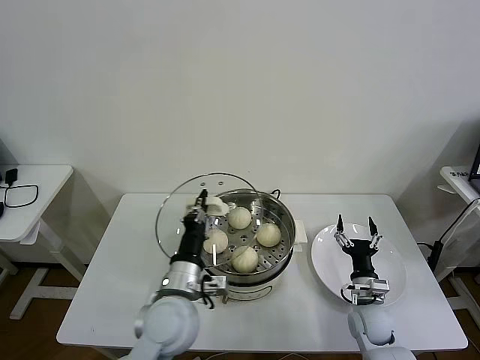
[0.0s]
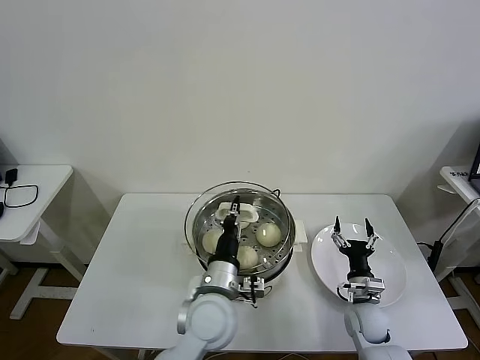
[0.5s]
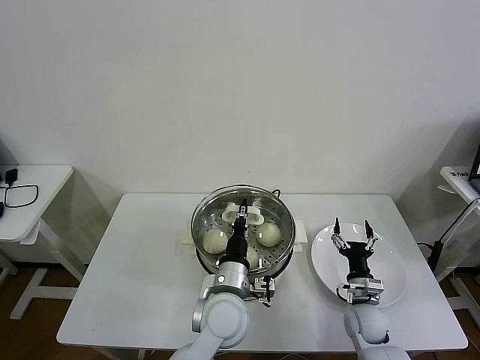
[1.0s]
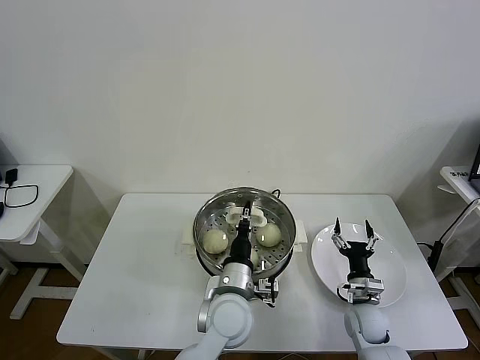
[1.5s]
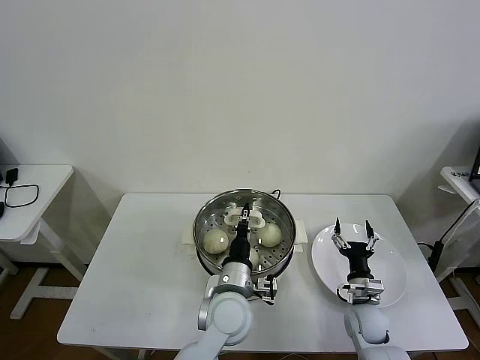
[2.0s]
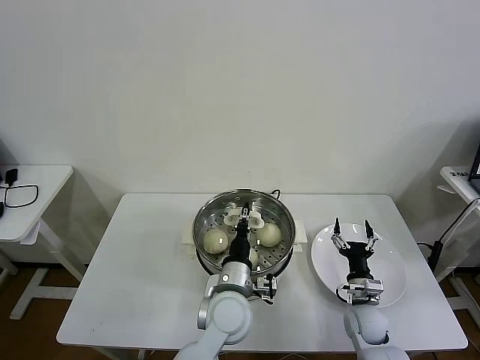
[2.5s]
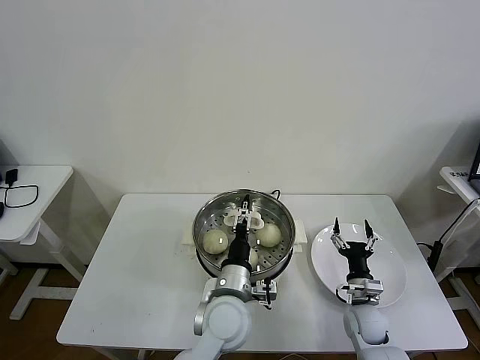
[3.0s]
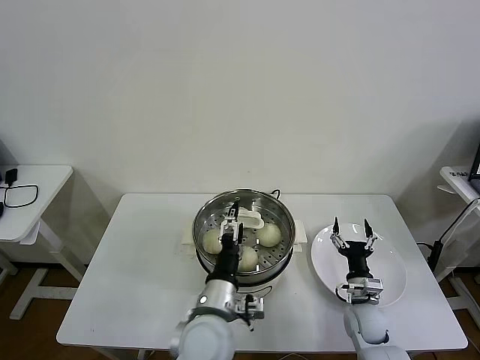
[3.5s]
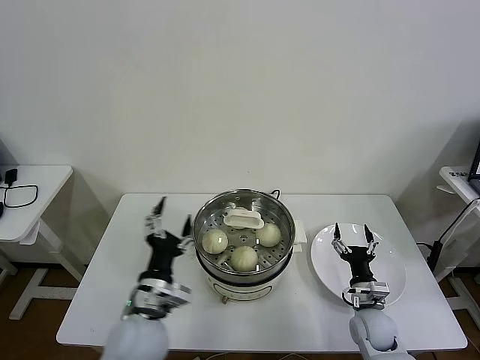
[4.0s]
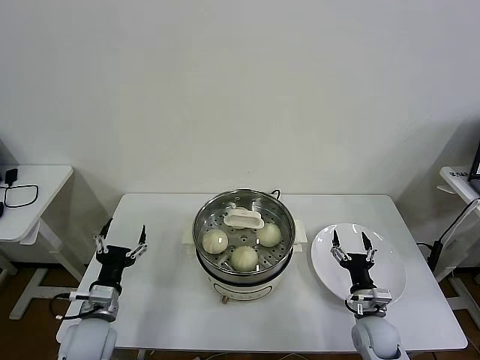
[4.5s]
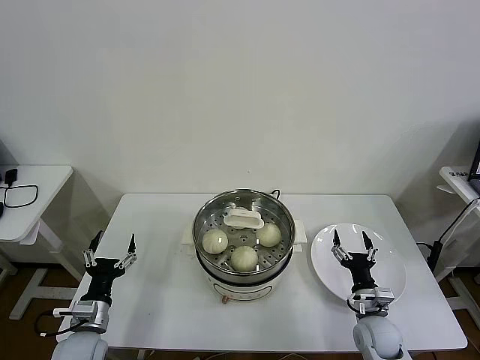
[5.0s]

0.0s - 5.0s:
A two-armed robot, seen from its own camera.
Task of the whole recording: take steamed baozi put them in steamer then cover it.
Step, 0.0s - 2.5s: Place the pot lid on the steamer with left gripper.
0.0s - 2.5s: The left gripper travels to the right and downward by roughly 10 cm.
2.5s - 5.0s: The left gripper is displaced to the left by some 30 cm, and opens.

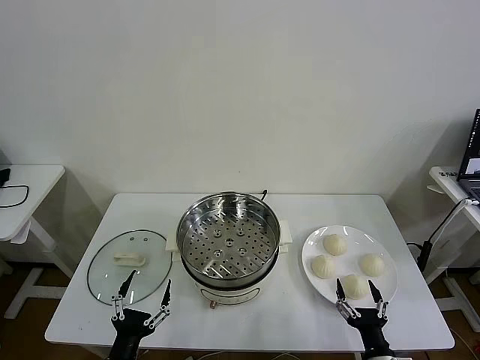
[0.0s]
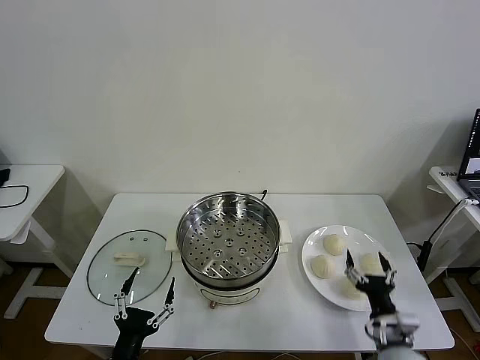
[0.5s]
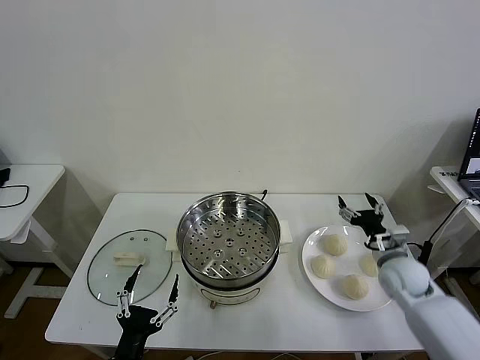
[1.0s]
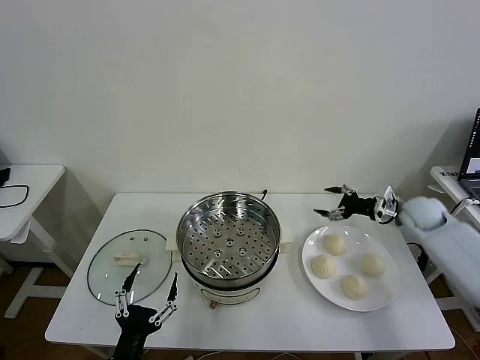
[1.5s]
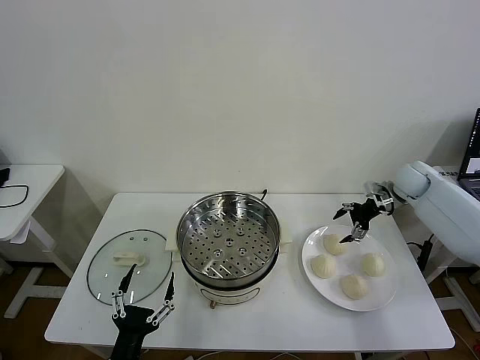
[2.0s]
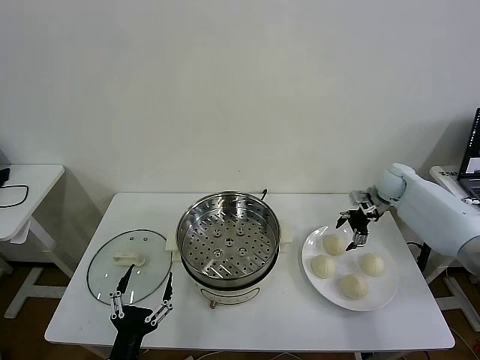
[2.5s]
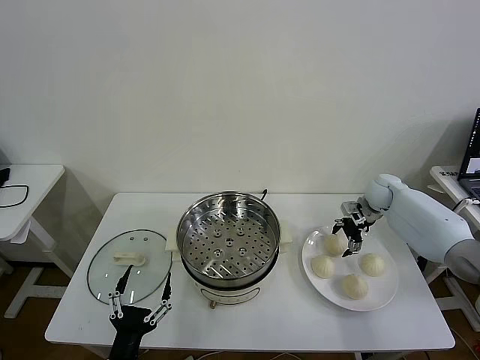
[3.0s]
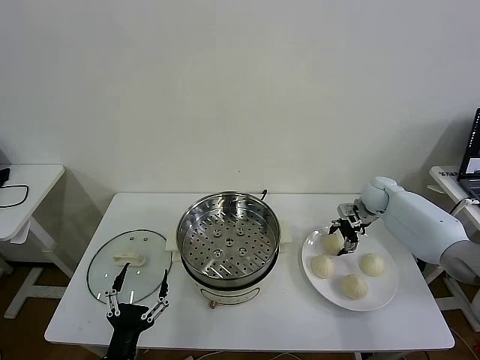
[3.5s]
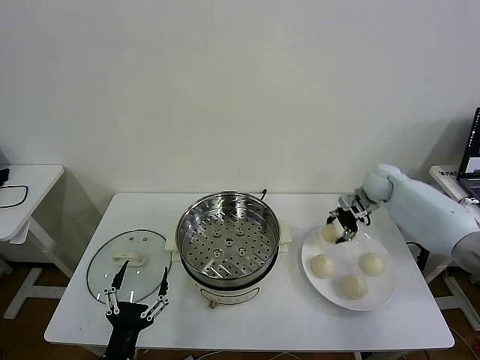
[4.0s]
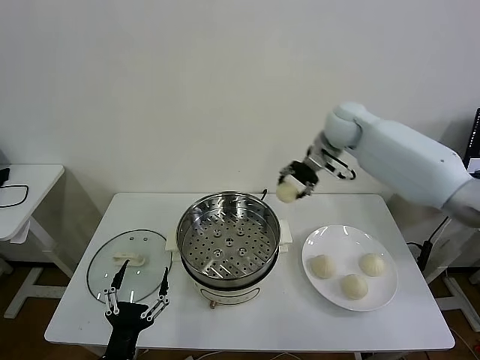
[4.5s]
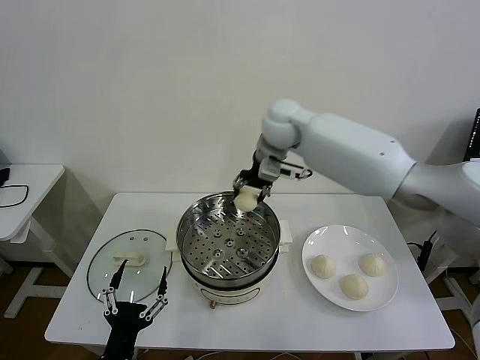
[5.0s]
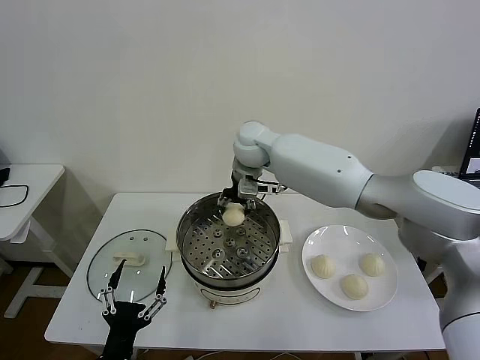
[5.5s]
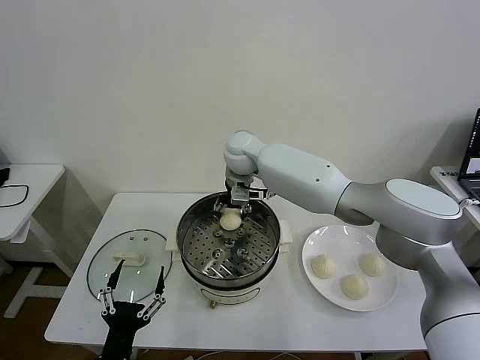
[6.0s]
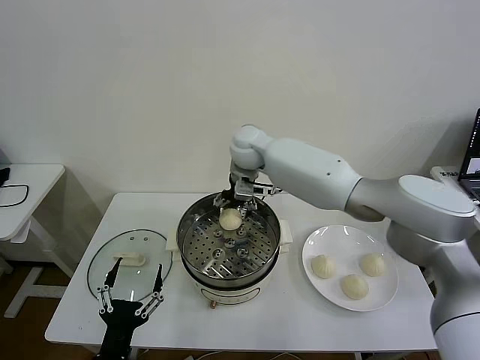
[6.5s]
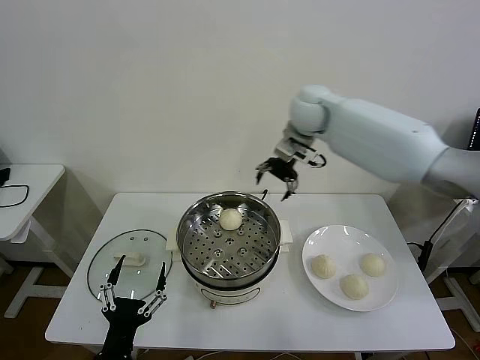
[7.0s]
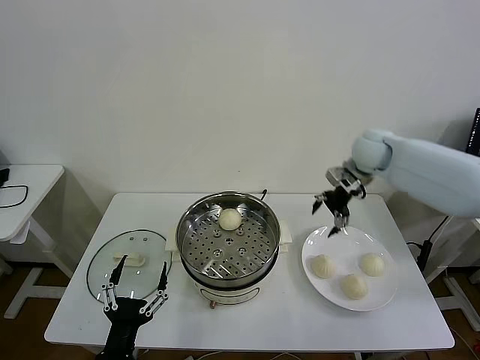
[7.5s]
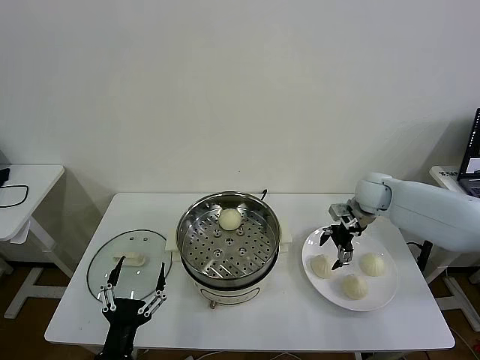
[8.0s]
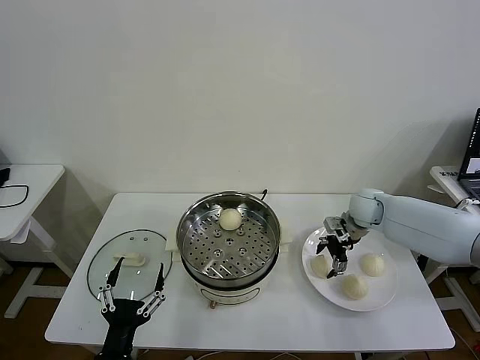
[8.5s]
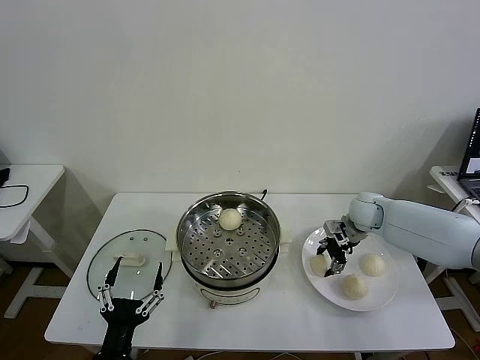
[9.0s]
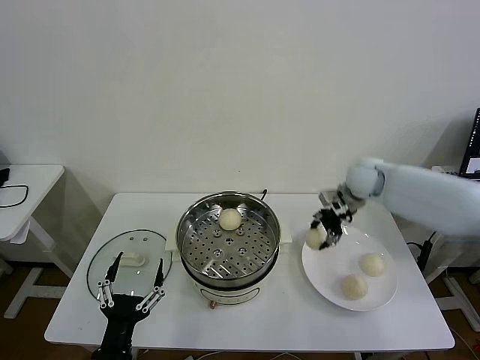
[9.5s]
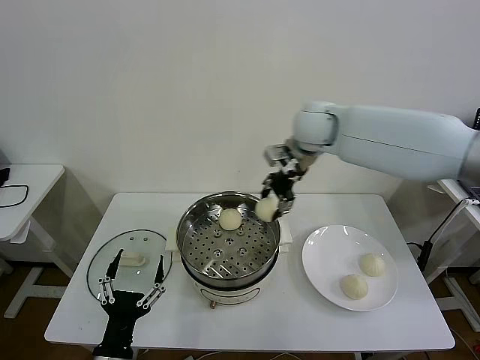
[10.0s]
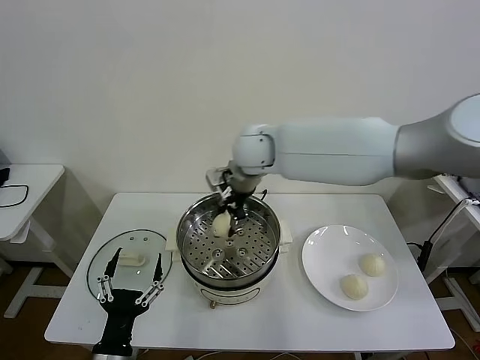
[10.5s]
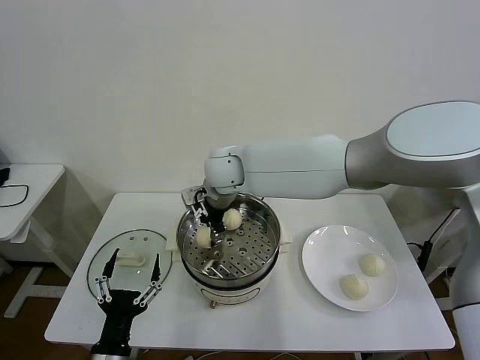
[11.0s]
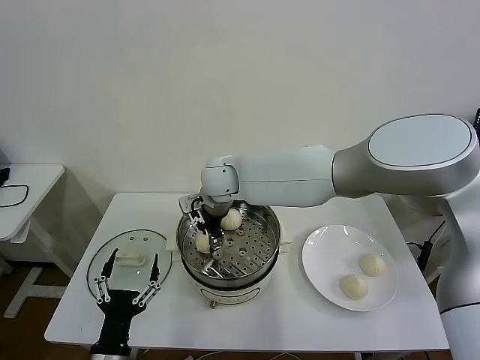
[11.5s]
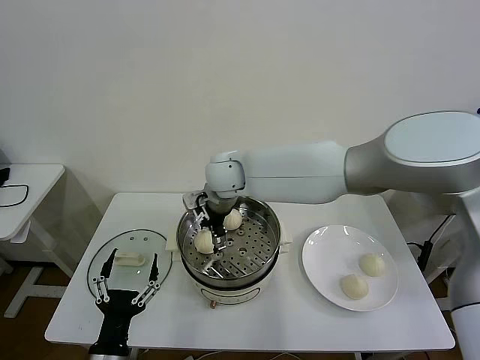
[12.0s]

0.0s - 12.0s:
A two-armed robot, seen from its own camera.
Task of the whole recording: take steamed baozi put them in steamer then cover it.
Step, 0.0s - 3.5s: Grasp the baozi in the plate with right gripper.
Step, 4.0s - 6.5s: Place the baozi on the steamer with right gripper.
Step, 7.0s - 9.0s: Grasp the baozi in the plate with right gripper.
2.0s - 4.0s: The right gripper goes some 10 cm to the left, reaches some 5 cm downward, then returns, and closes up.
4.0s - 6.0s: The right gripper is displaced to the left by about 35 cm.
6.0s - 8.0s: The right gripper shifts about 35 cm to the right, and opens its fingers.
8.0s - 10.0s: The right gripper heads to the left and upward, covering roughly 30 cm, and closes up.
10.0s - 12.0s: The right gripper is displaced to the left and downward by some 15 cm, and opens up.

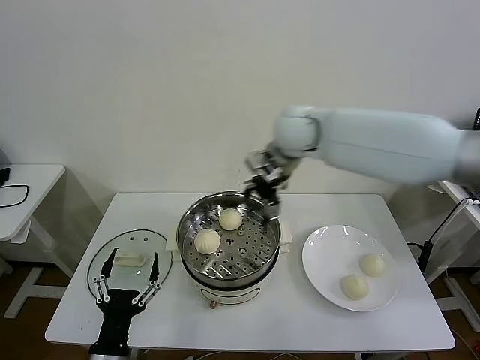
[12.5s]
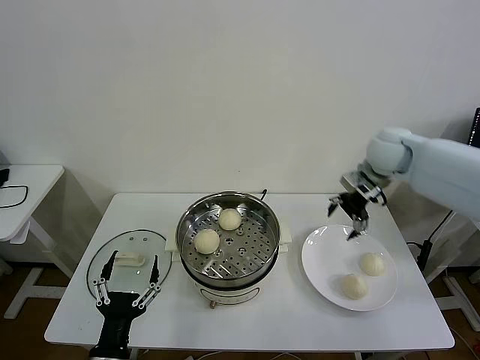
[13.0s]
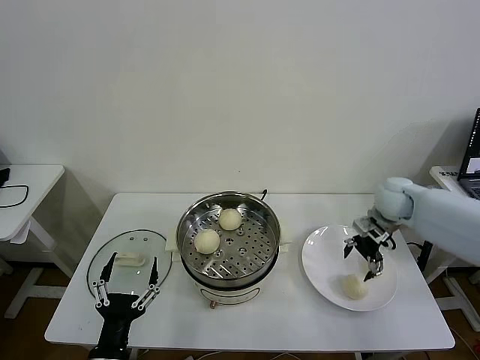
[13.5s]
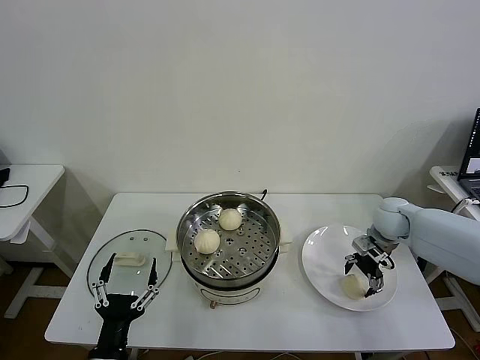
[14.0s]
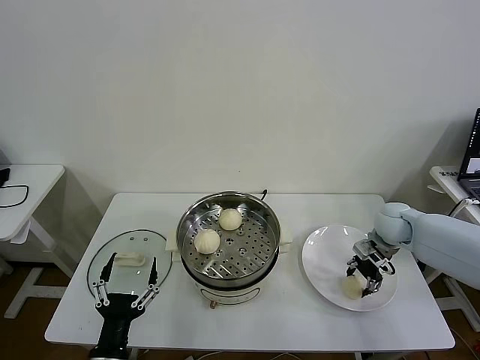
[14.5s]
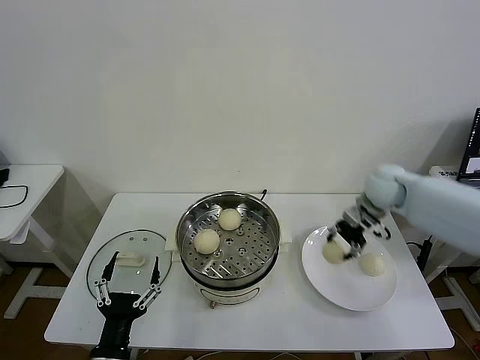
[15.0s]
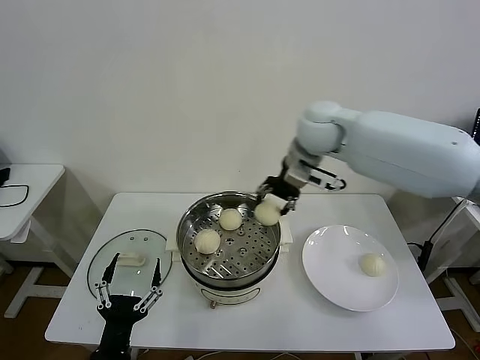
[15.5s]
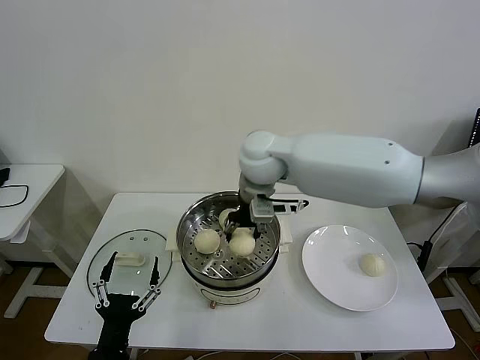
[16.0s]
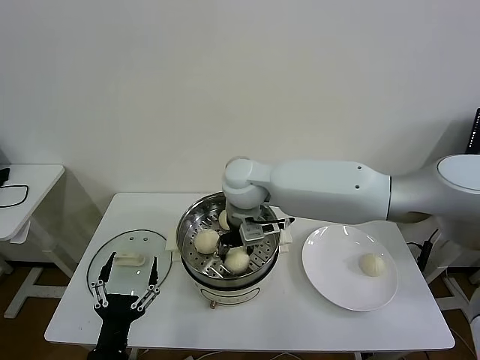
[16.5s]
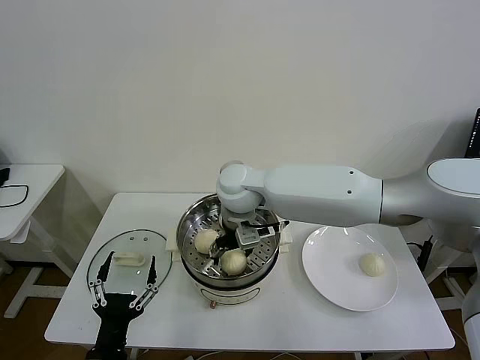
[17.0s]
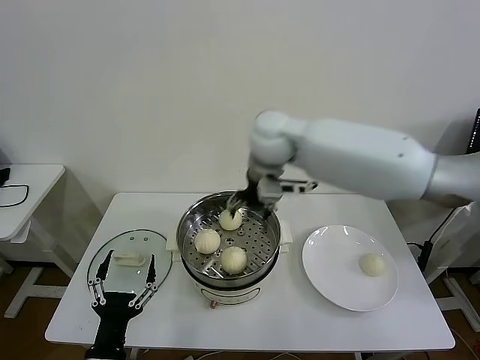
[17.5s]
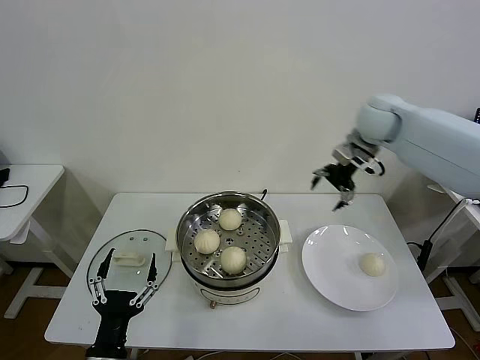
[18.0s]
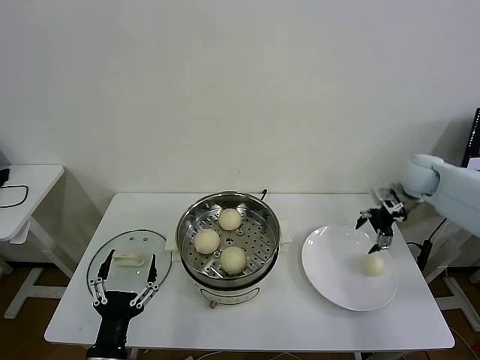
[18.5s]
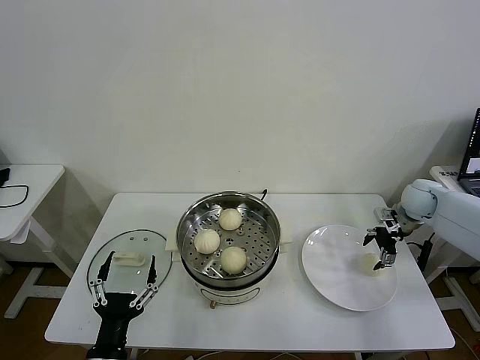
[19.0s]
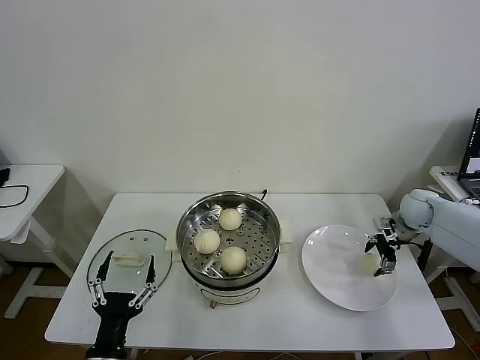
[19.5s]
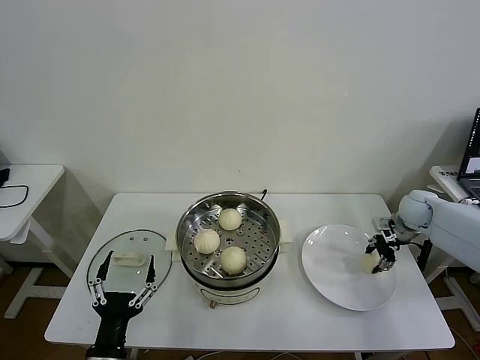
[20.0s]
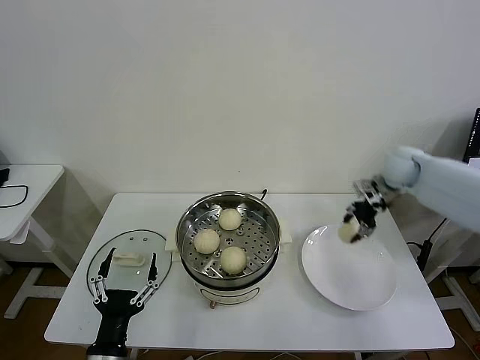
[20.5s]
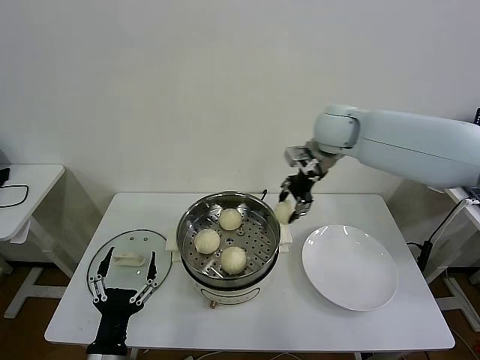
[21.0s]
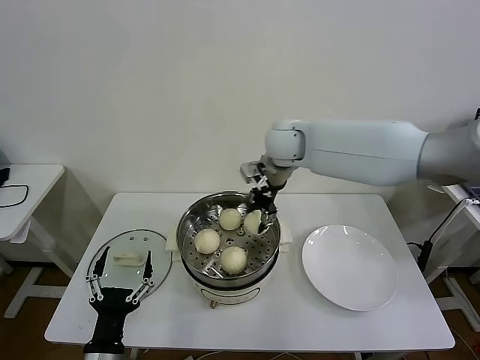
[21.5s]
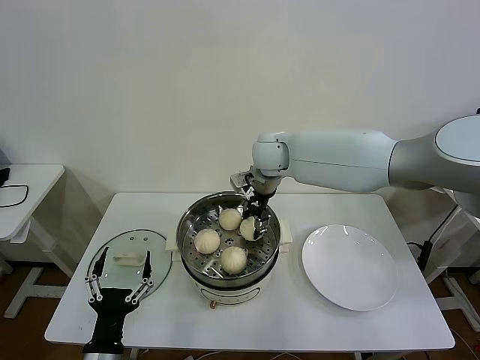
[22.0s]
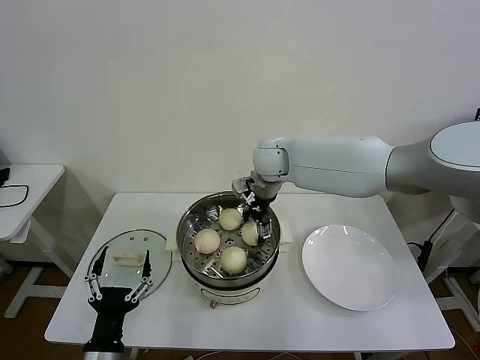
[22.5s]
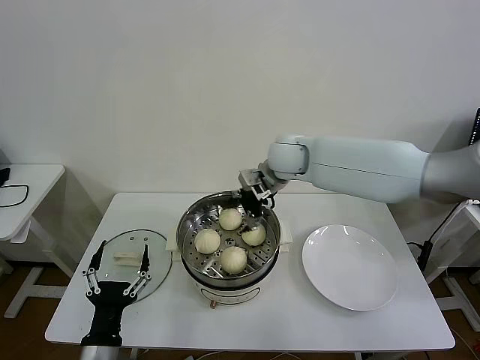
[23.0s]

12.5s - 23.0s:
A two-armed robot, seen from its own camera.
Task of the whole recording: take steamed baozi put them in steamer then cover it.
Step, 12.5s - 14.5s: Grasp the baozi in the plate with right gripper.
Step, 15.0s - 17.0s: Place the baozi on the steamer with right gripper.
Step, 17.5s - 20.0s: Grasp the baozi in the plate with right gripper.
12.5s - 14.5s: The right gripper travels downward and to the right by approximately 35 cm, and closes.
14.5s - 16.5s: The right gripper goes approximately 35 cm to the left.
16.5s - 19.0s: The right gripper is displaced to the right by roughly 40 cm, and opens its fingers.
19.0s - 21.0s: The right gripper is displaced to the left and upward by roughly 30 cm, and closes.
21.0s - 23.0s: The right gripper travels to the left and downward by some 10 cm, and opens up.
